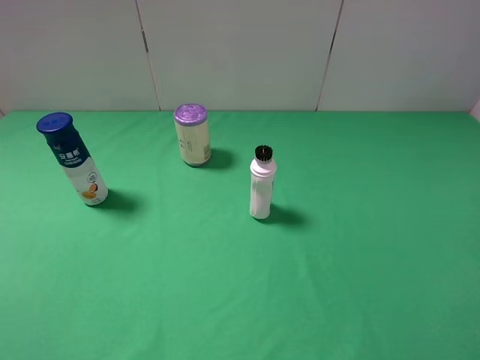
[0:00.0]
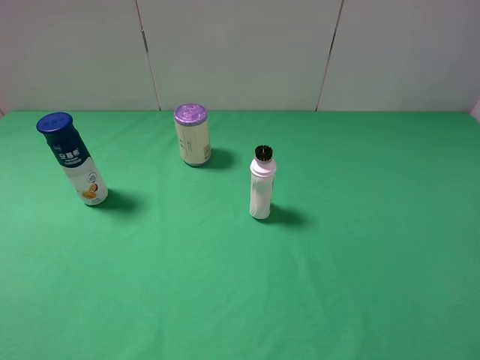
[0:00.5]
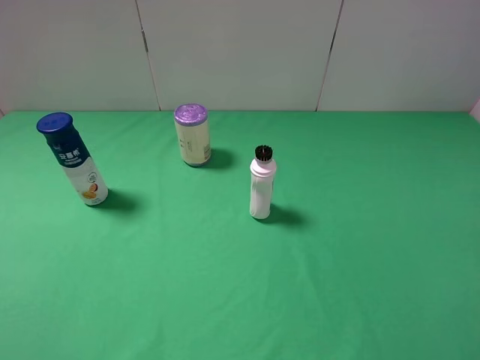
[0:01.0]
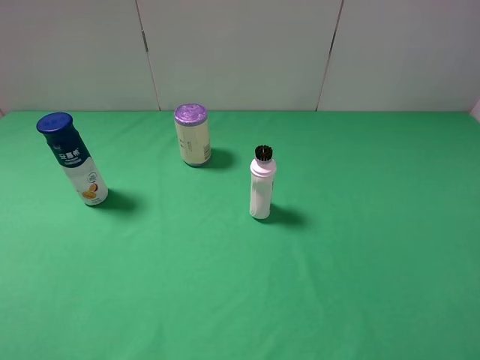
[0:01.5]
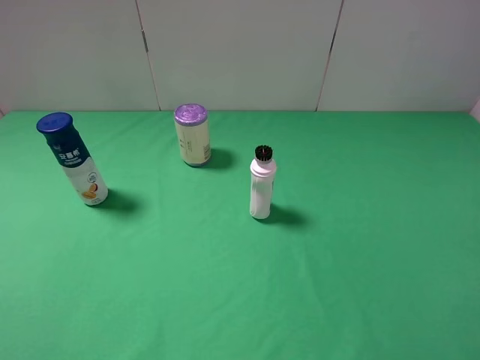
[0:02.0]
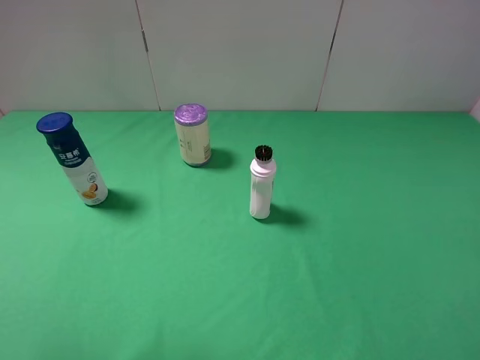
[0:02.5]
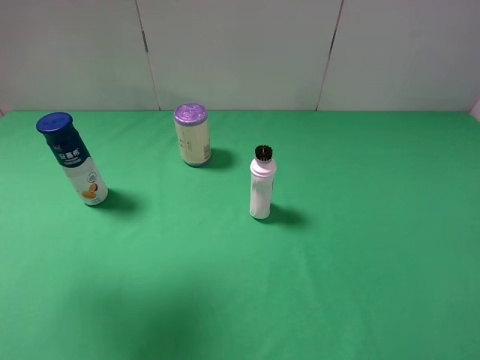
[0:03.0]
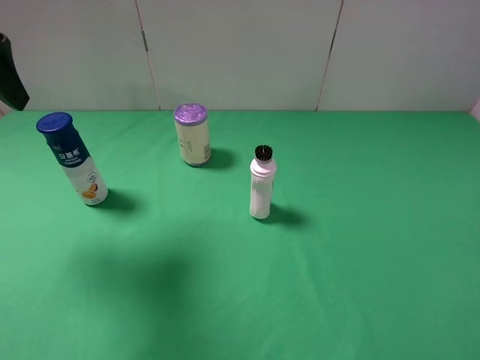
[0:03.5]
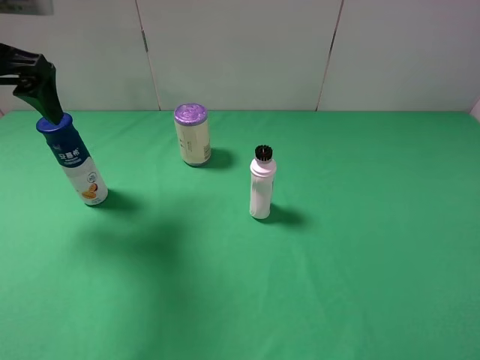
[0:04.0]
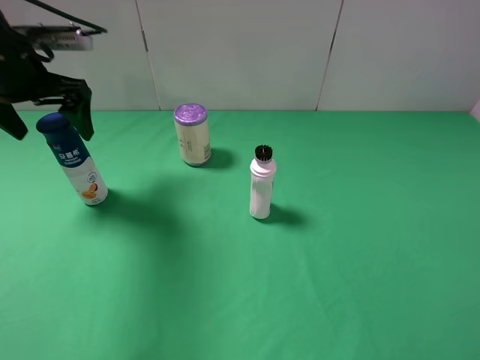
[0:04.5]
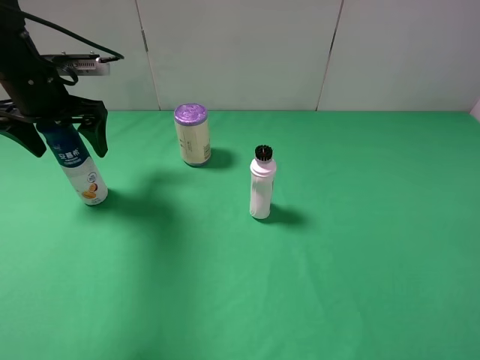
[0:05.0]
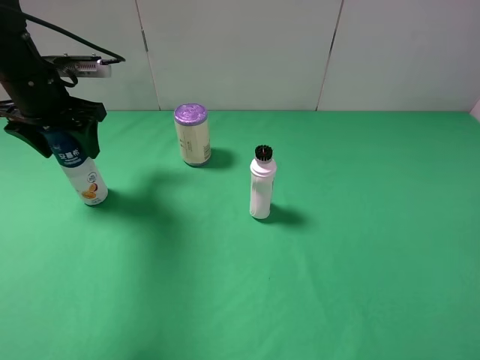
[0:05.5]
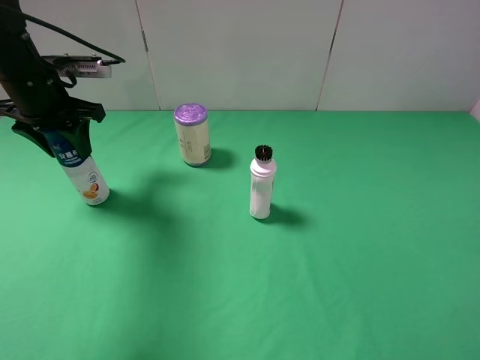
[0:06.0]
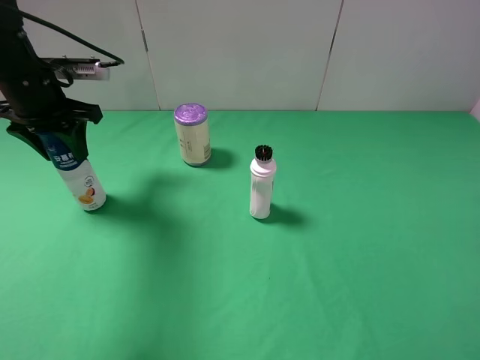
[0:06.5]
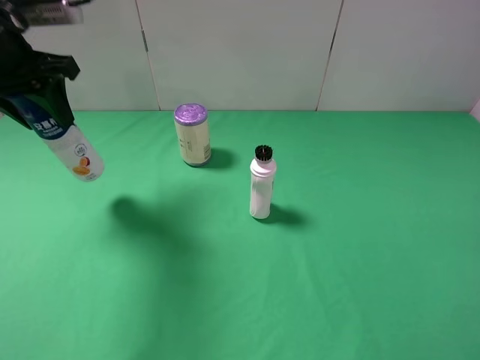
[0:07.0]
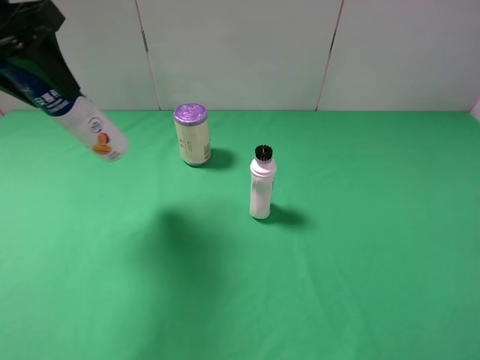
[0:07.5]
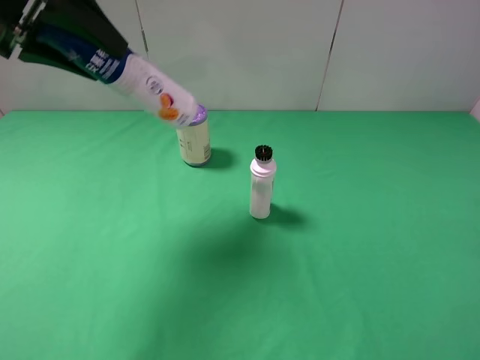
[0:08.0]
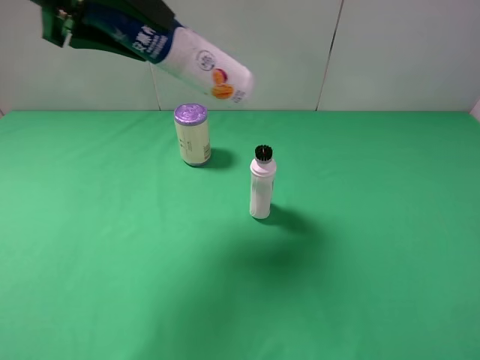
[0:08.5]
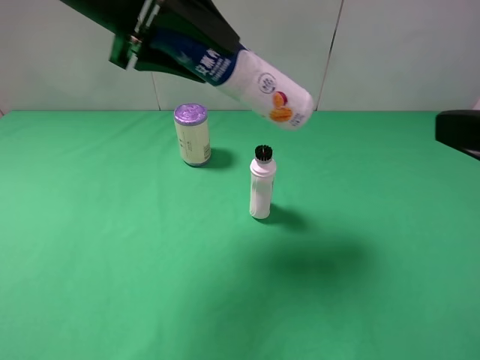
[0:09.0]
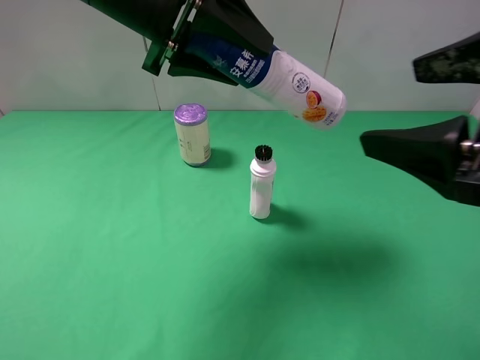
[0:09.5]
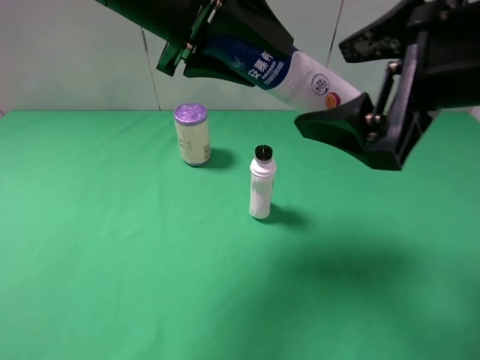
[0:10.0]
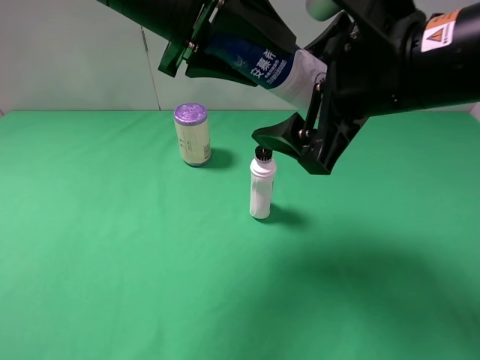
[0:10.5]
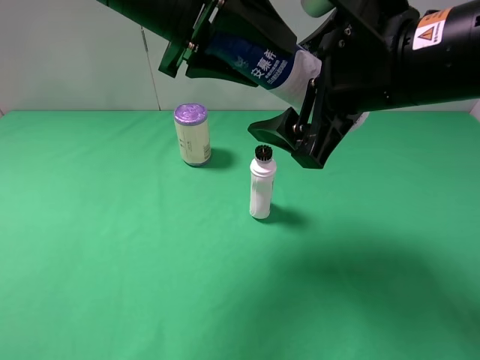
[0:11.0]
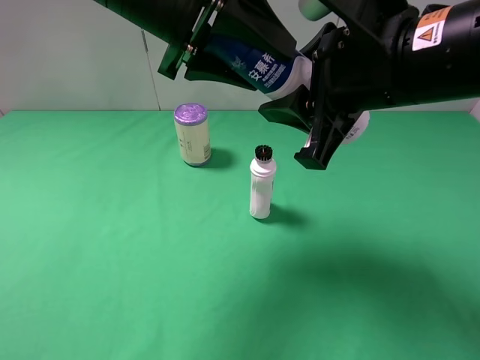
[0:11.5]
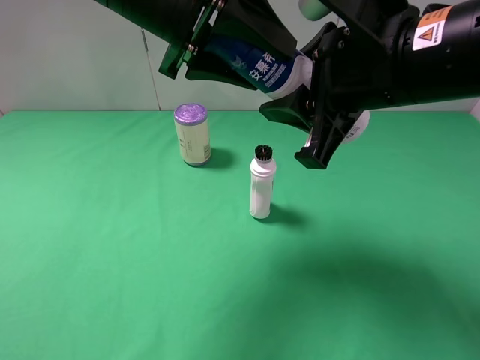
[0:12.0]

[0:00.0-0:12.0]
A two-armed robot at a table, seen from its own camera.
Task of the whole recording: use the left gripper to pick up the item and transfer it from the left gripper to the right gripper.
Step, 0:00.0 to 0:05.5: Use the left gripper to grab the yogurt on the left side of the table.
0:02.0 to 0:04.0: The left gripper is displaced forward by roughly 30 cm.
0:04.0 to 0:06.0: The left gripper travels downward and forward by approximately 10 cm, and closes its fingers.
0:06.0 to 0:08.0: The left gripper shifts approximately 15 cm upward and backward.
0:08.0 to 0:10.0: The left gripper shifts some 15 cm to the right, while the right gripper moves forward and to the left, roughly 20 cm.
0:10.0 to 0:12.0: The right gripper shifts by roughly 5 cm, and closes its fingers.

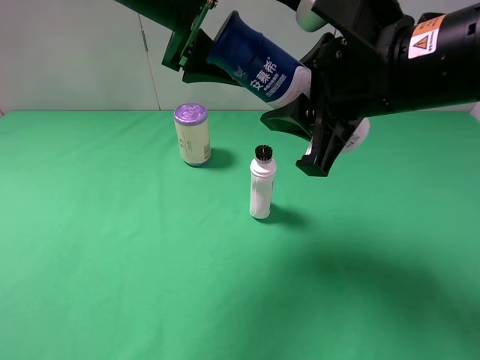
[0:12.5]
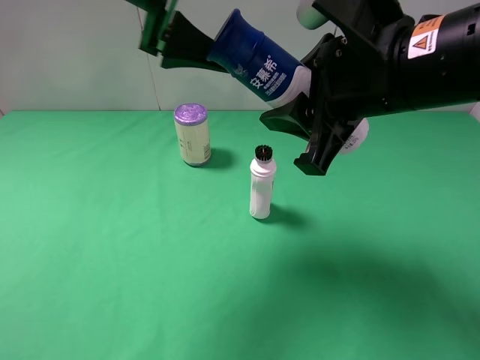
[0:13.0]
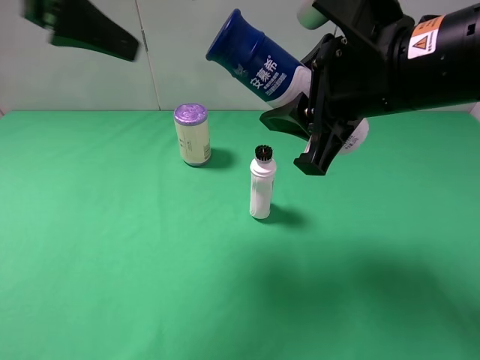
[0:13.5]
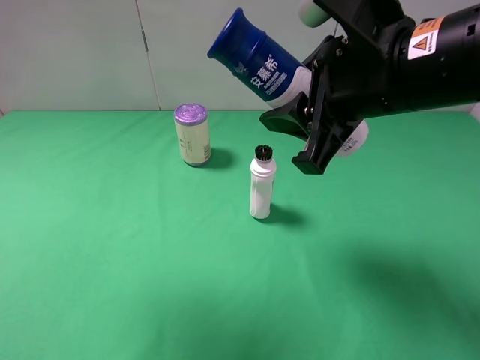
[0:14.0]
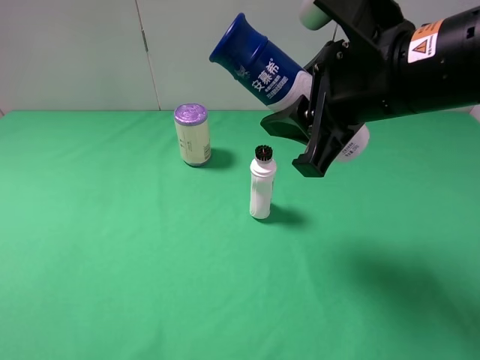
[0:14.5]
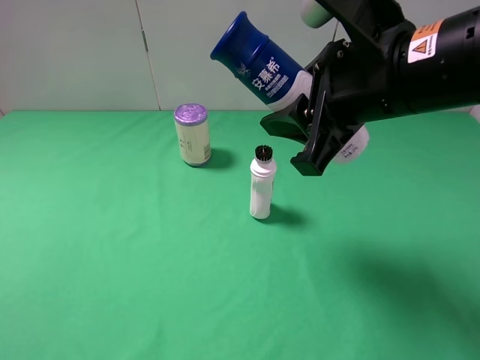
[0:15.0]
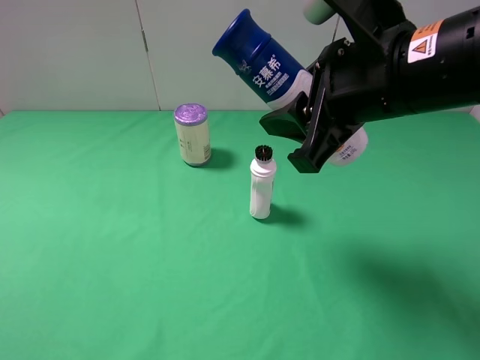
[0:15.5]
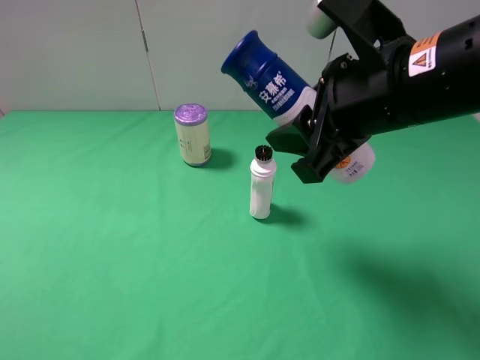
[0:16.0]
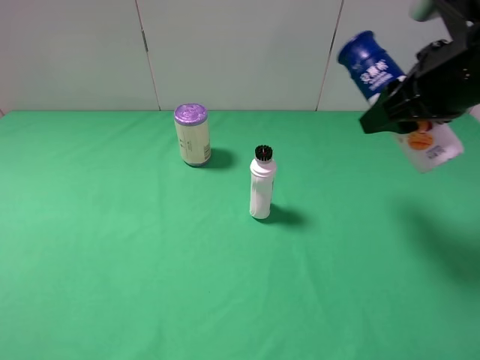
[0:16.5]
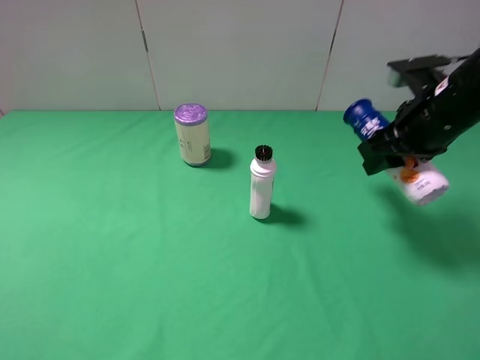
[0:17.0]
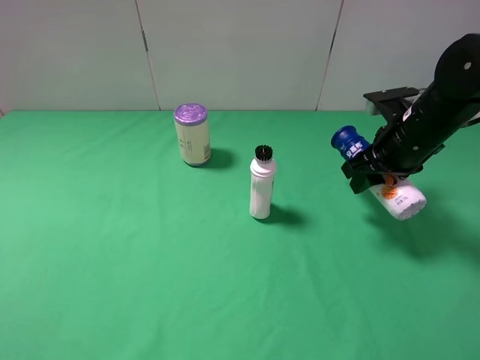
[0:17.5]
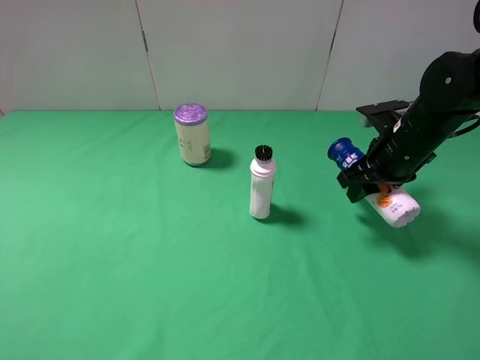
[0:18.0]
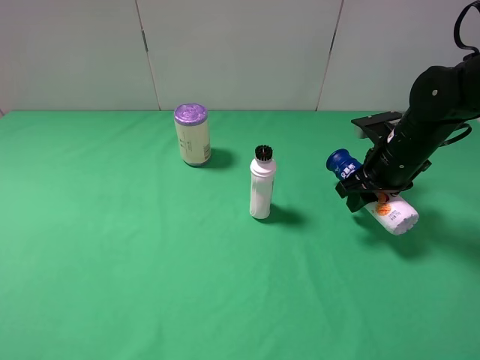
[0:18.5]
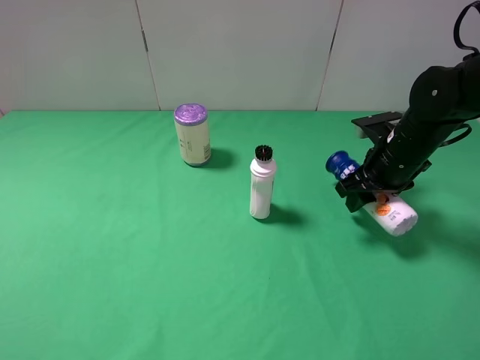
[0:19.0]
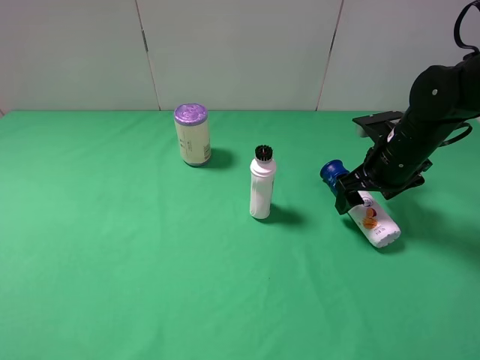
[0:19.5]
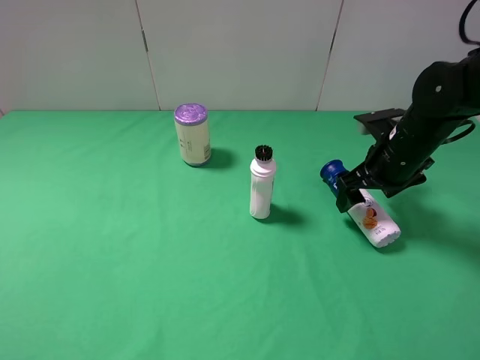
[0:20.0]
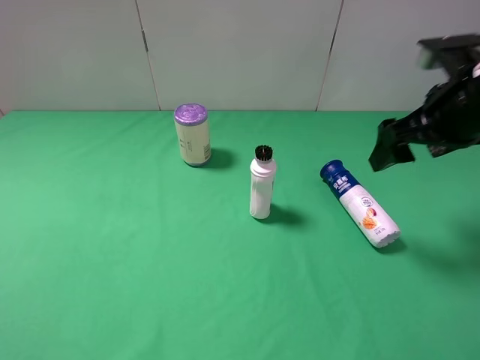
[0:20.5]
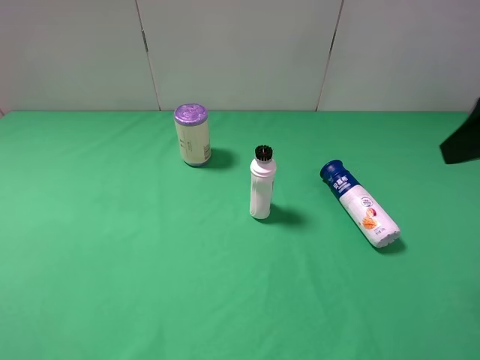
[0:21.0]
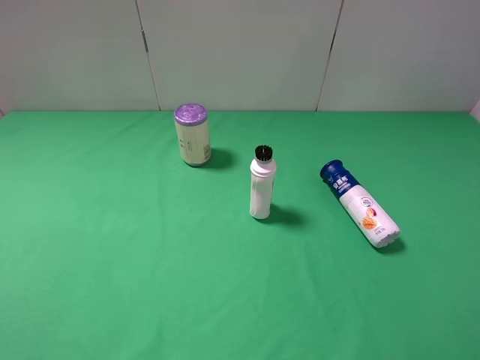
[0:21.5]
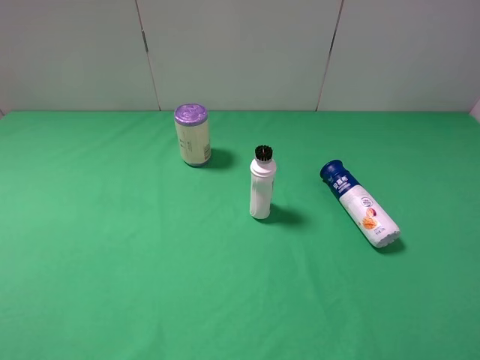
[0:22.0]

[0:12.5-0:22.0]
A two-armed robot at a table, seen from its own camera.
Task of the whole recording: use the left gripper to pick up the item and transfer it from the left gripper to the right gripper.
Step, 0:12.5 to 0:19.0: The right gripper places yogurt on the right side of the table.
0:12.5 to 0:14.5: The left gripper is displaced to the left, backward and upward by roughly 30 cm.
0:14.5 to 0:16.5: The right gripper shifts approximately 10 cm to the right. The left gripper moves downward, some 15 cm.
0:16.5 to 0:18.0: The right gripper goes some 15 cm downward and forward.
0:18.0 to 0:20.0: The right gripper opens its fingers.
0:20.0 to 0:22.0: The right gripper goes roughly 30 cm backward and upward.

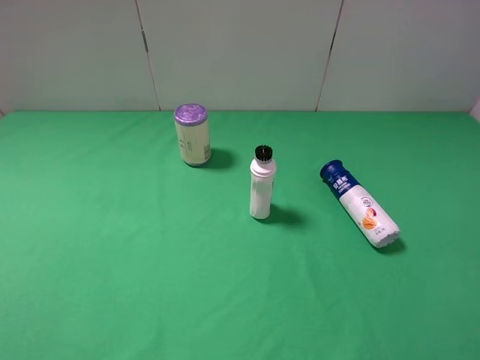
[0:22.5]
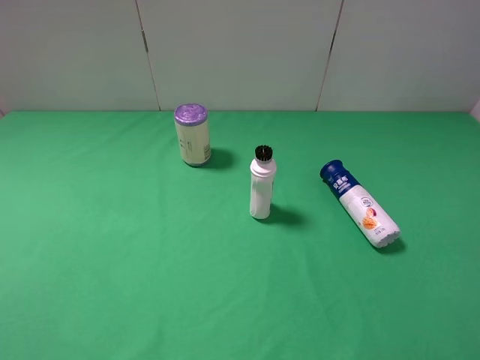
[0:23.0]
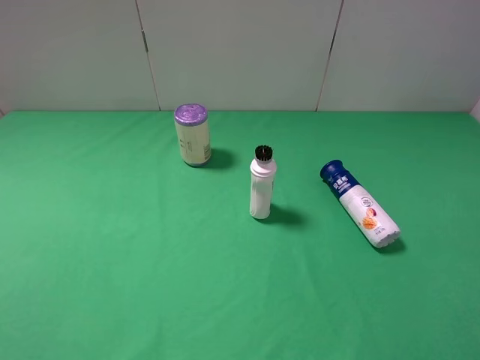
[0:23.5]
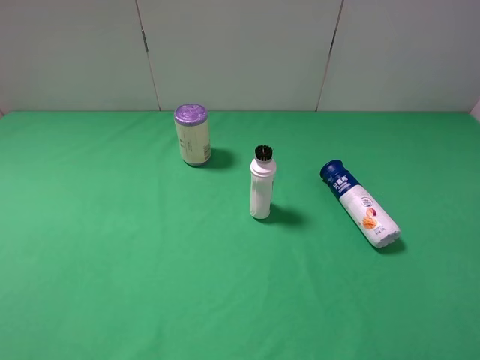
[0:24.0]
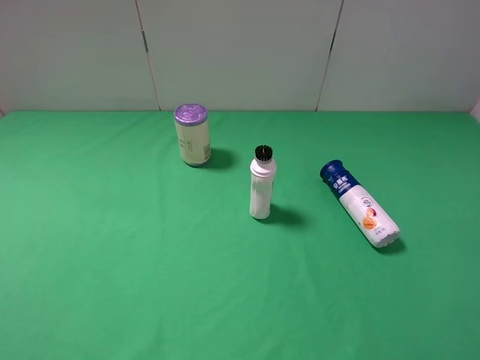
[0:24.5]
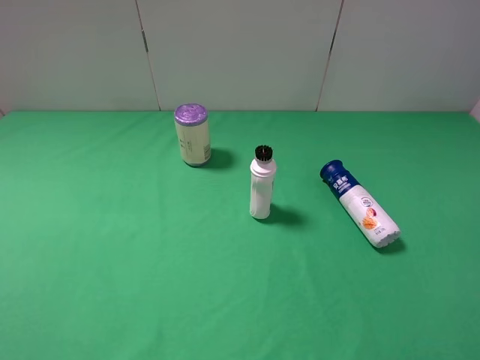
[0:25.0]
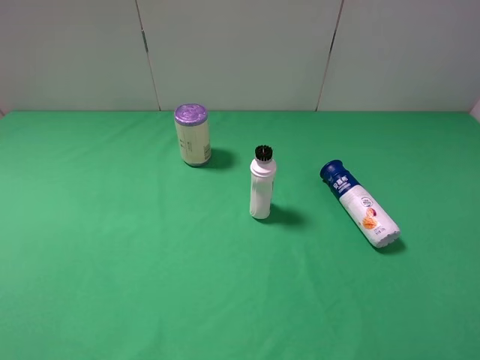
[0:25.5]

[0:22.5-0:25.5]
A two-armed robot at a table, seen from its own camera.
Task of the whole recording: use the left gripper to pick up the item and transfer it from the left gripper to the right gripper.
0:24.0 to 0:25.5: Neither gripper changes place.

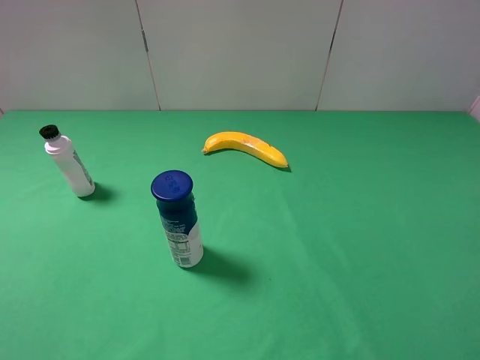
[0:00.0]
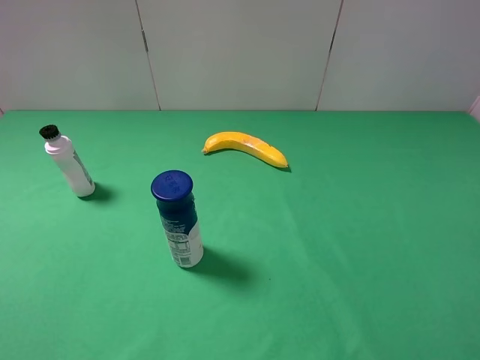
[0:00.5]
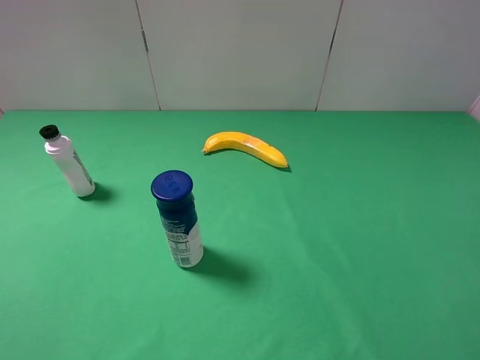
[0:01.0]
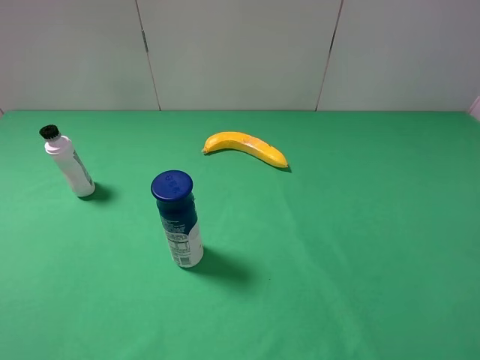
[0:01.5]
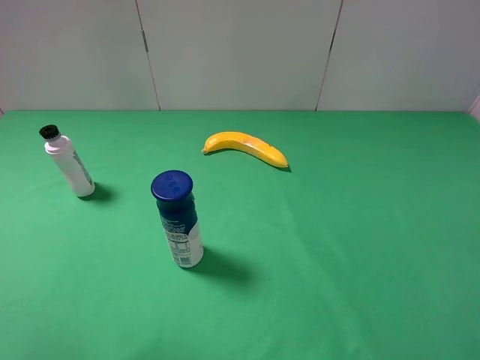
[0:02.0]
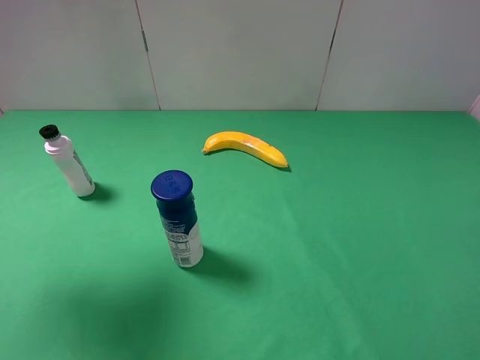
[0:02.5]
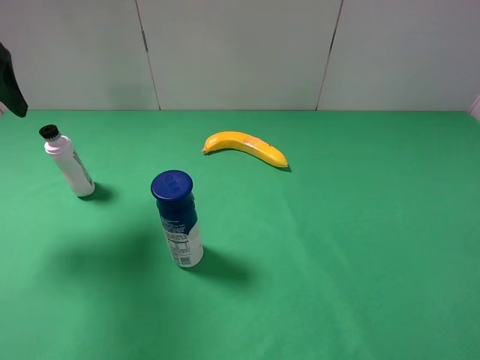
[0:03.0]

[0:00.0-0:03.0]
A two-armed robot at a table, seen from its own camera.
Task of the whole recording: use the left gripper to pick up the item and transfer it from the left gripper to the right gripper.
0:01.5 to 0:03.0: The left gripper is displaced forward by approximately 25 cm.
